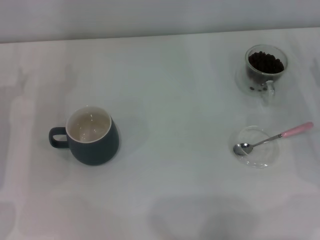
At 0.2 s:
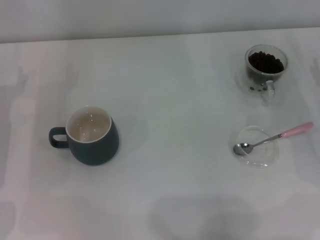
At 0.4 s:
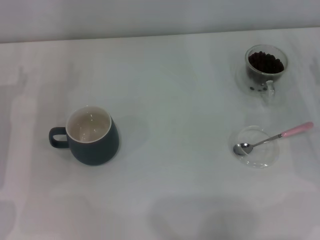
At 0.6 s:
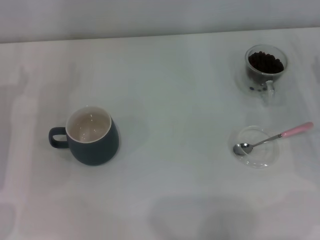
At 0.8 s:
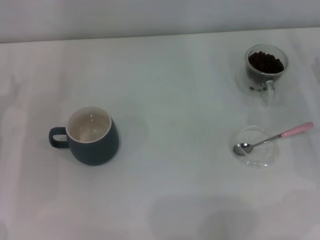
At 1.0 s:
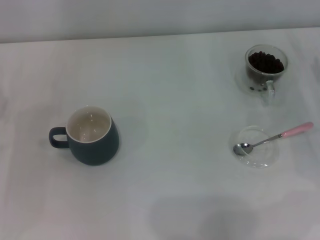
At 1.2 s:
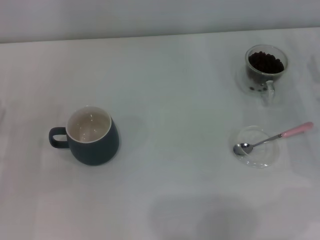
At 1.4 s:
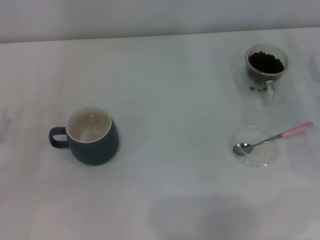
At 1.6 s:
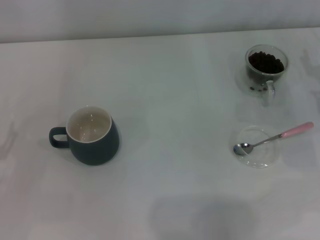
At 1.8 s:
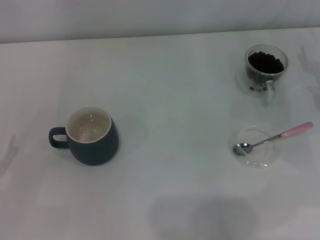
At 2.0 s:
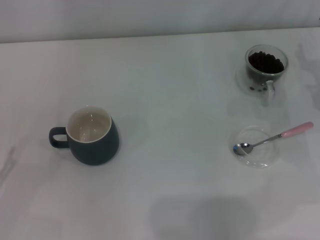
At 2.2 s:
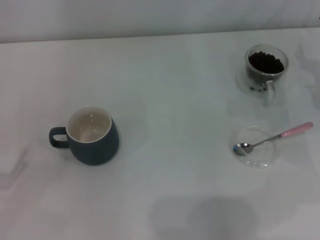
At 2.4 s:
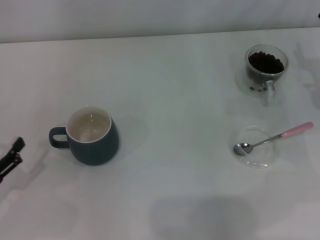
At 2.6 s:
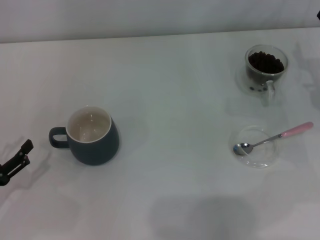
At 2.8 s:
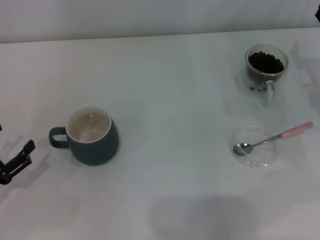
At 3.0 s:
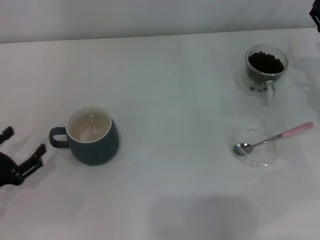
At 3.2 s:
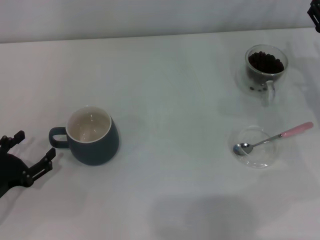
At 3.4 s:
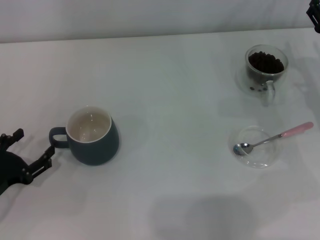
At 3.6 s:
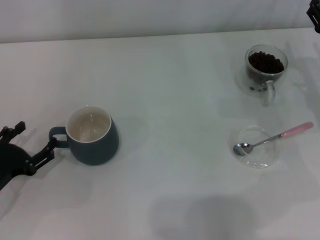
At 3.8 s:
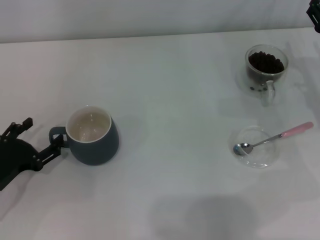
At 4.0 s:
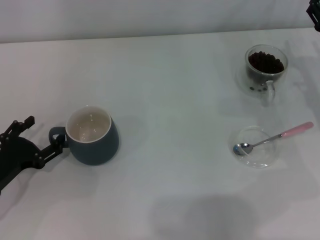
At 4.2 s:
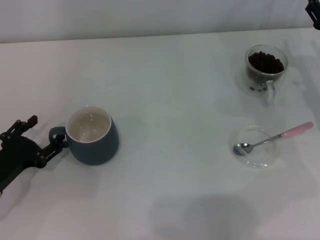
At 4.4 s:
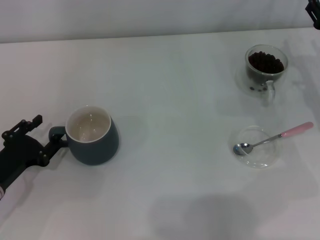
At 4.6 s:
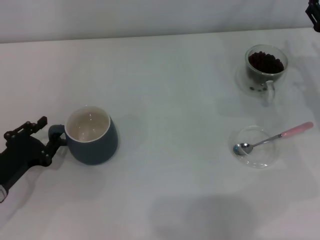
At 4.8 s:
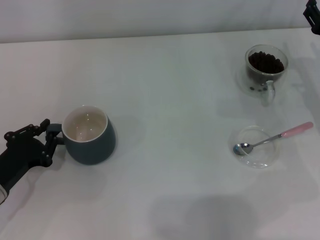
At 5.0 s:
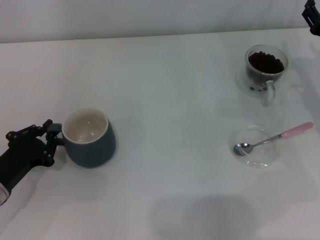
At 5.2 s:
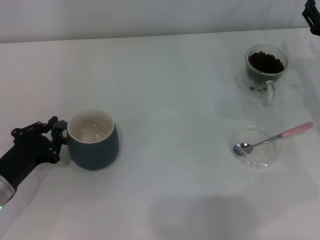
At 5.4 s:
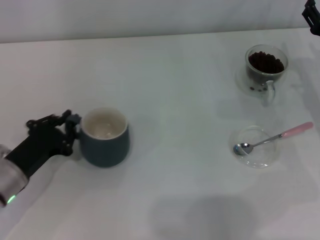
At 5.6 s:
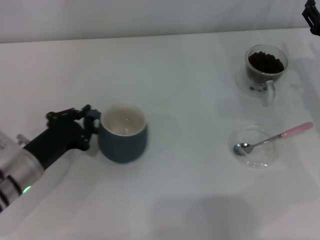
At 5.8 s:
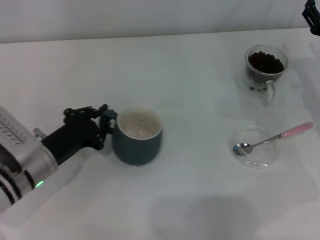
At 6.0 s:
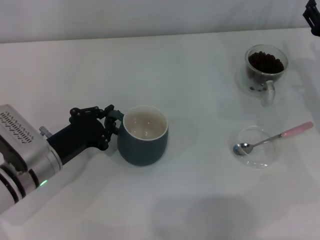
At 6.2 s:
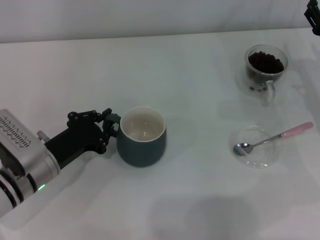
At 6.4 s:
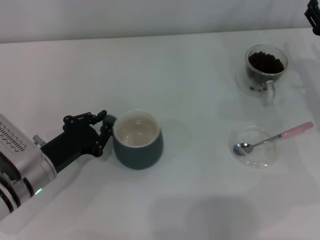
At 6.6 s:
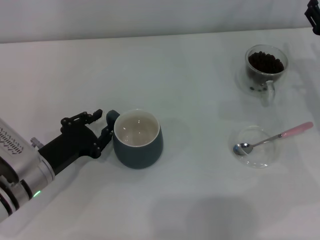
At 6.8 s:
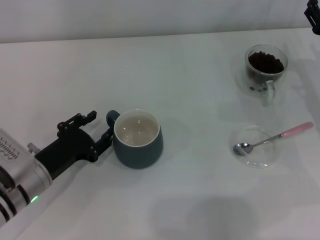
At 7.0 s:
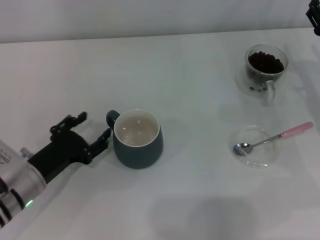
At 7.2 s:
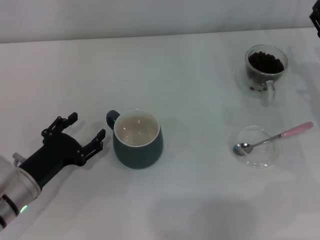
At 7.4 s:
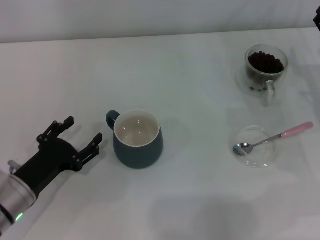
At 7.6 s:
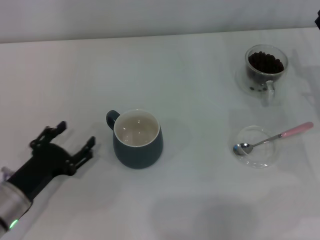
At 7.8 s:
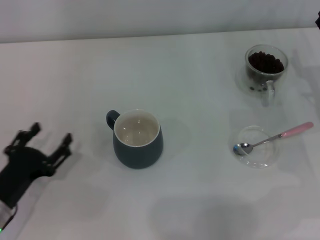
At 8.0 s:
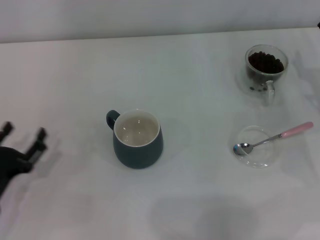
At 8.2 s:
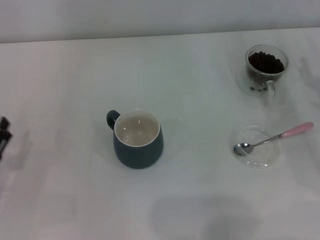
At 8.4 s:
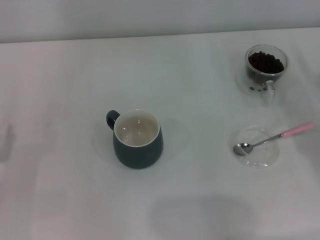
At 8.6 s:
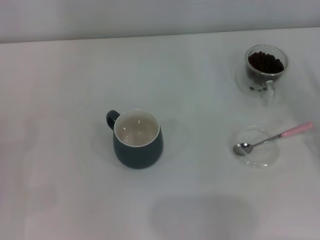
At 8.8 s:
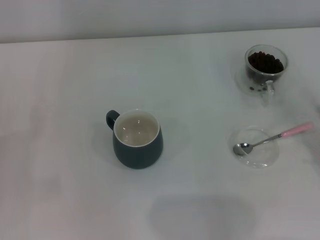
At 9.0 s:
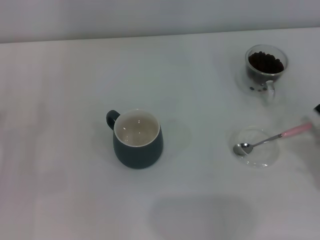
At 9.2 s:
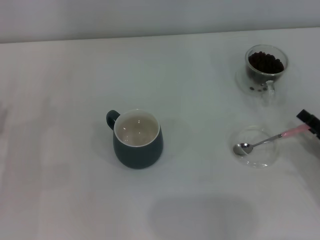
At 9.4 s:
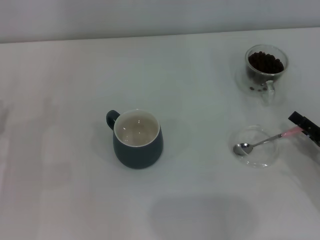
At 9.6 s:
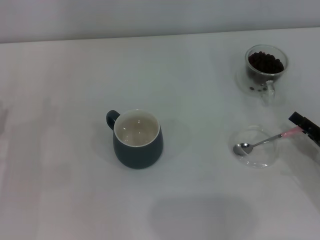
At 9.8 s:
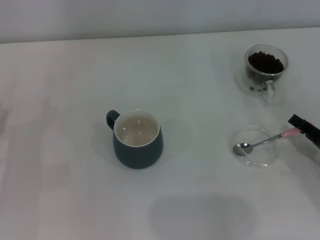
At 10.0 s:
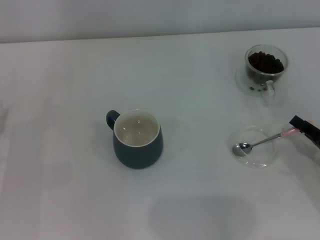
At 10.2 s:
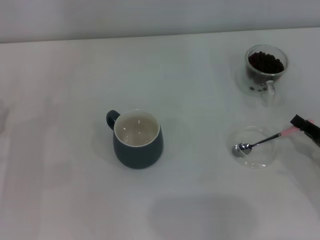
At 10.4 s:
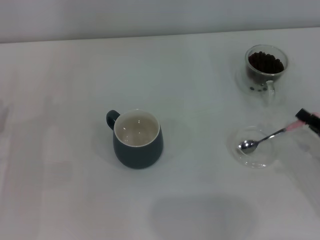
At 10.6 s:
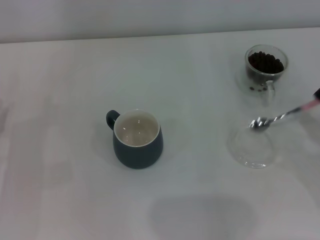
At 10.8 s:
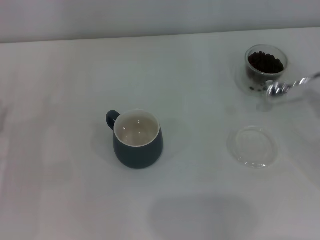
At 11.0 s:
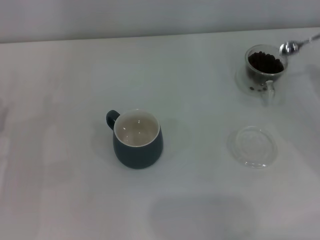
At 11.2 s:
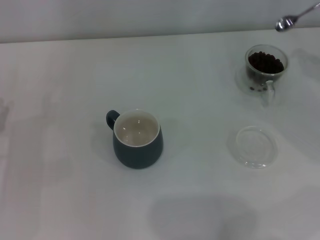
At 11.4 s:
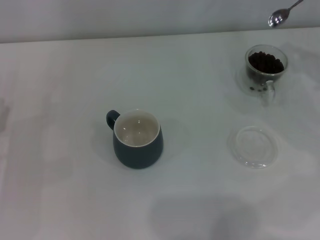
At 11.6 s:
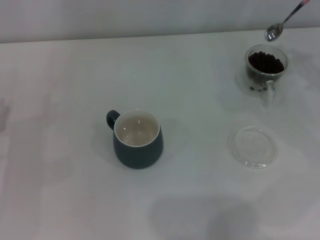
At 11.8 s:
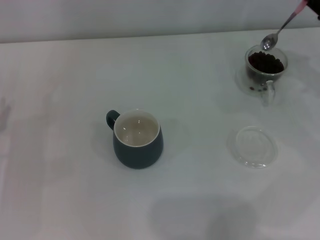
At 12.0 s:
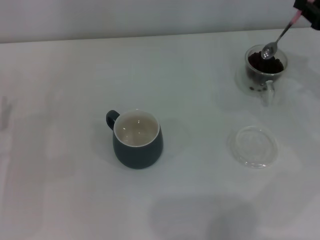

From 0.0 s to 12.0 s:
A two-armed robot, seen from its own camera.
Task of the whole recording: Use a pink spoon to take out the coffee beans from the glass and pour them into the gray cup.
Step, from 0.0 s to 7.0 s: Move the cup to the center of view with the left gripper.
Step, from 7.2 s to 10.4 s: Pick up the spoon with the right gripper.
From 0.0 s to 1.6 s: The left gripper heads backward, covering approximately 15 cm.
From 3.0 s to 4.4 s: The left gripper changes place by about 5 cm.
From 4.4 s to 6.0 s: The left gripper shifts some 10 cm to the right, and closes up.
From 6.0 s to 7.6 s: The left gripper shifts approximately 5 cm backward, and opens up.
From 7.6 s to 9.0 s: The left gripper moves to the left, some 10 cm. Meanwhile the right gripper goes some 15 cm backward.
From 9.0 s to 10.4 s: The right gripper closes its fingers.
From 10.4 s to 12.0 s: The right gripper heads forward and upward, covering roughly 20 cm.

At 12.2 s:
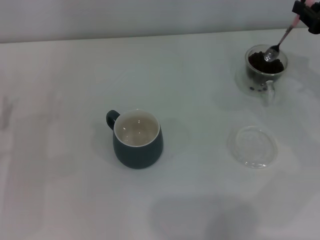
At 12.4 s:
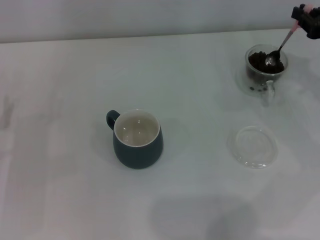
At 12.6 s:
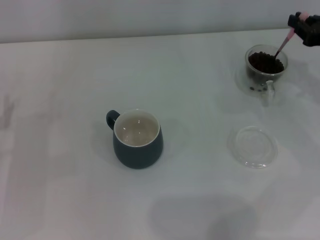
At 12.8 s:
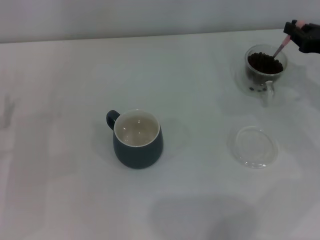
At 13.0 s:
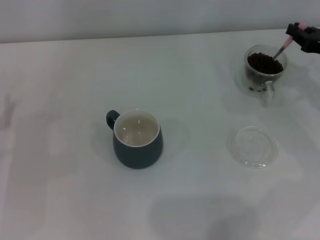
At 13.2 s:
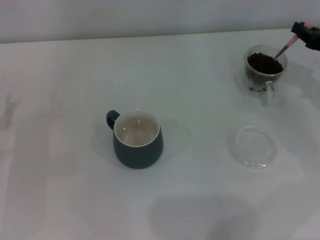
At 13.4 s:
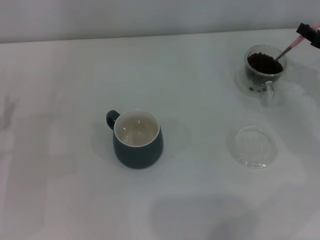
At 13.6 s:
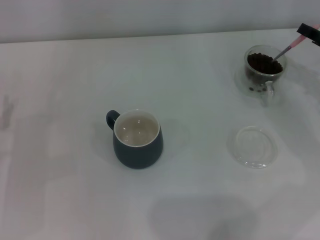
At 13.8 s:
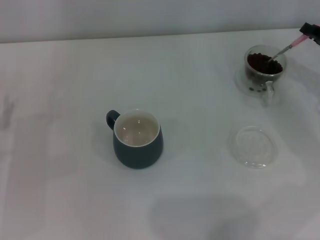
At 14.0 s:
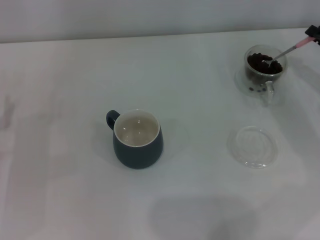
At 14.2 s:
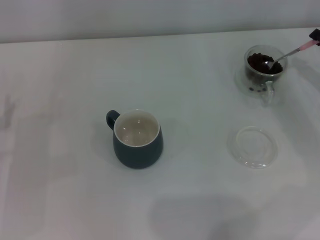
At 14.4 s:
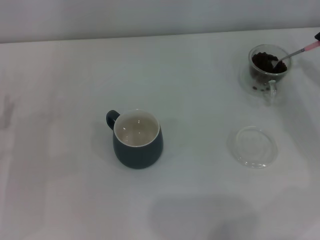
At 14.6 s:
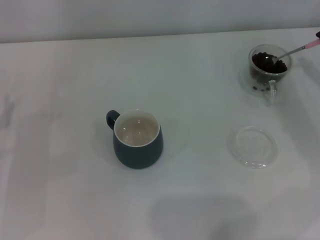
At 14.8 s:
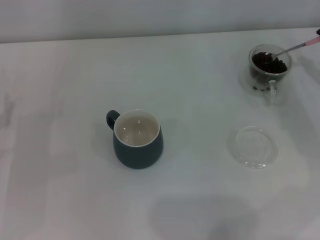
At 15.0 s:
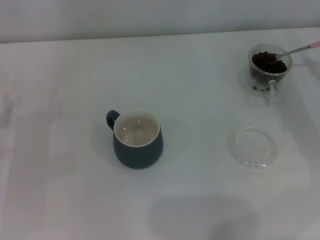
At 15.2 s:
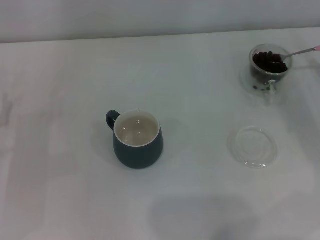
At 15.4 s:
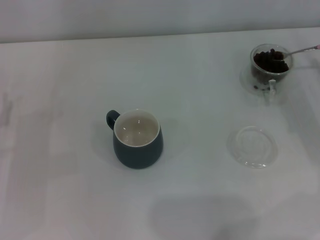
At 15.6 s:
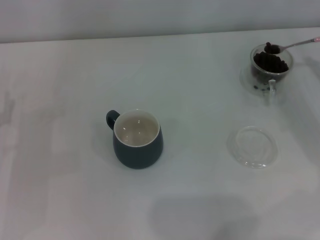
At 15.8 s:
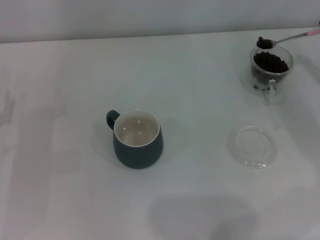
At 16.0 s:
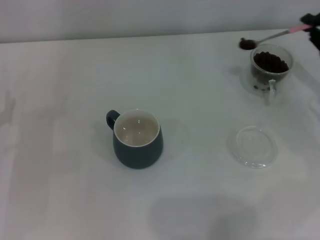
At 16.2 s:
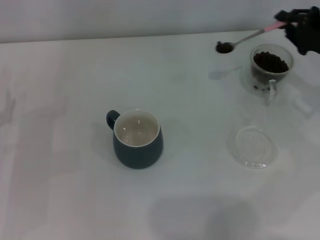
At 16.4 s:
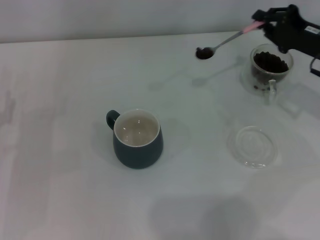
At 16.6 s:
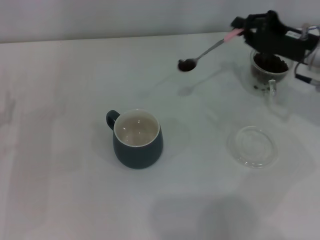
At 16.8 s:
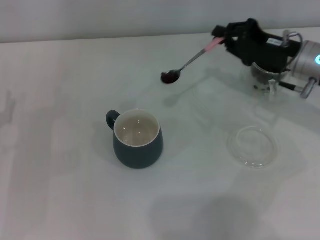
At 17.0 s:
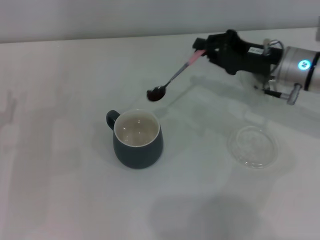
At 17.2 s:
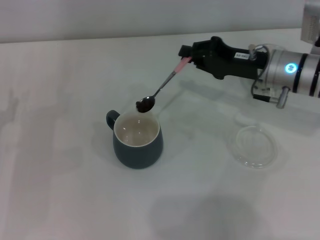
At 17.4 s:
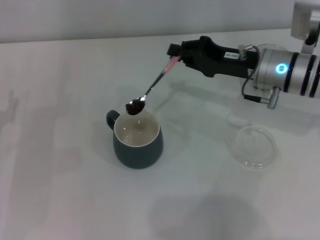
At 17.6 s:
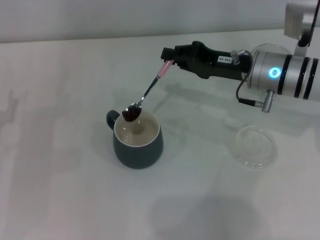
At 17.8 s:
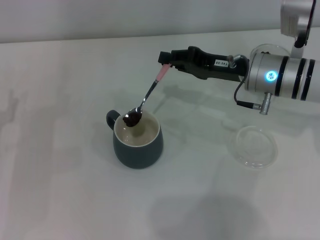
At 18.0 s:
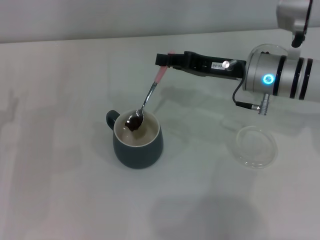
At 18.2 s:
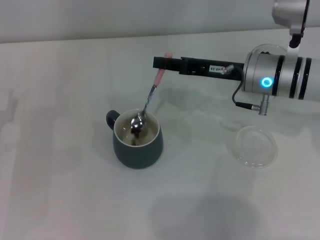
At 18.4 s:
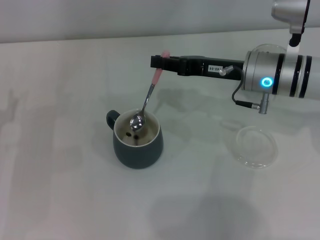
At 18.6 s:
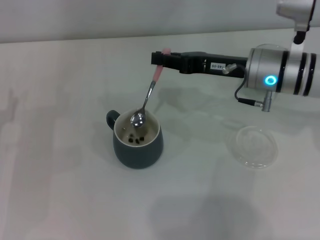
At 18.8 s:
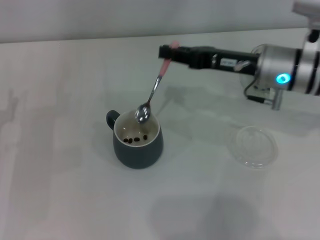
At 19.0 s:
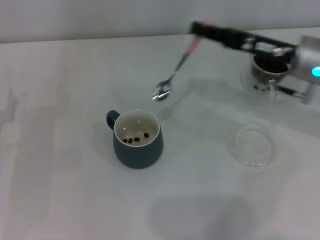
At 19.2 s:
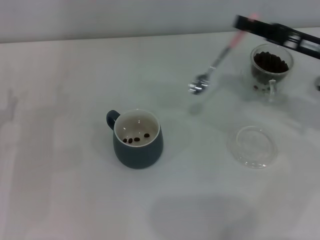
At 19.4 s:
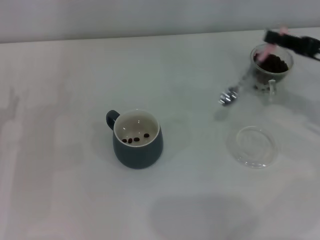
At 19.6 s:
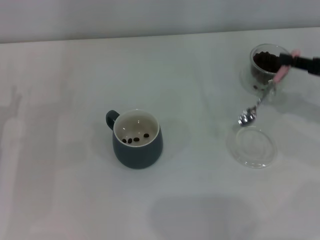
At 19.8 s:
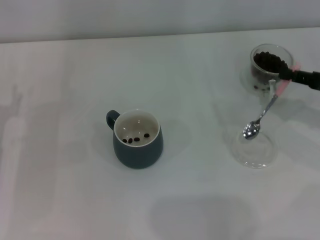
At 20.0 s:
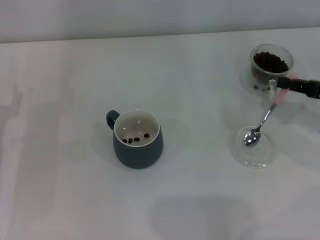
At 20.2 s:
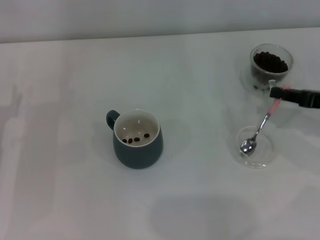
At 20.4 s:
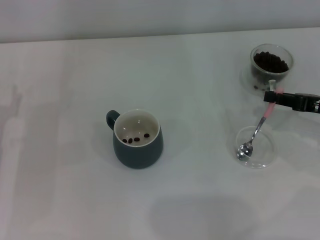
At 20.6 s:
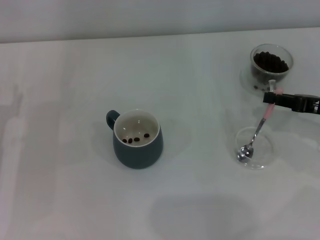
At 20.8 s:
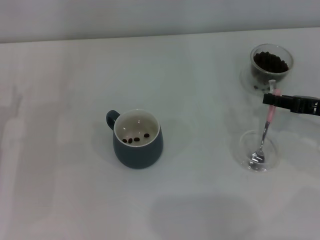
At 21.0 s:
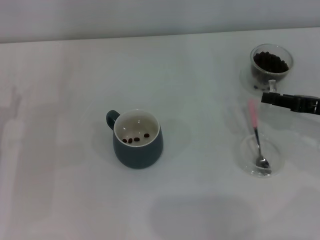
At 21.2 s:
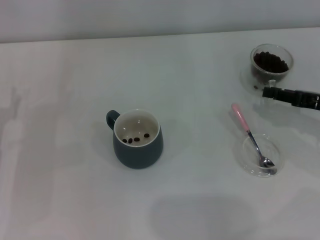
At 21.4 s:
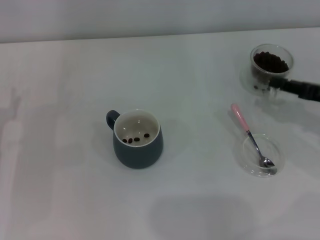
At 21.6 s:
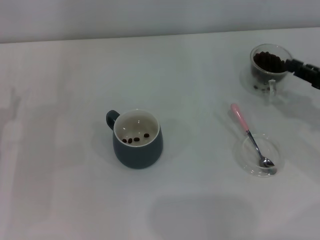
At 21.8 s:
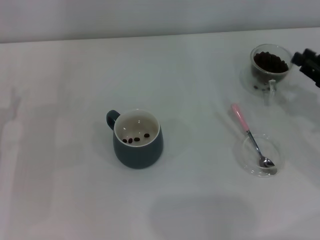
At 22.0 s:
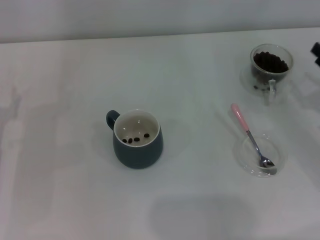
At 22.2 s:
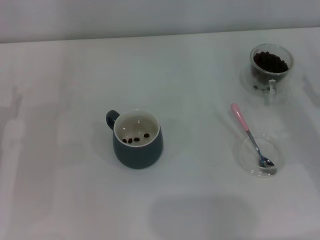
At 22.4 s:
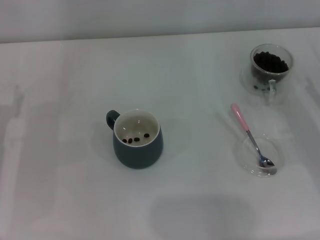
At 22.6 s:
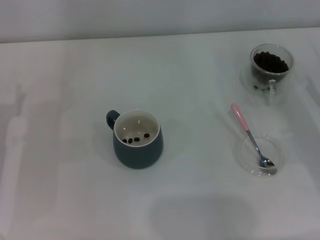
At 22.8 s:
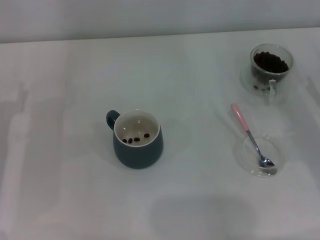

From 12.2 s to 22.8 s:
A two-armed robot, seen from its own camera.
Task of the whole recording: Use a pink spoon to take out the coffee beans from the glass and pour them into the gray cup.
Step, from 12.2 s to 18.2 s: Scoop a spoonful of beans into the cup with the right gripper.
Step, from 18.4 s to 20.8 s: Place the spoon back in its original place with the right gripper.
From 15.2 s to 16.8 s: The right gripper shifts about 15 cm to the left.
From 16.8 s to 18.2 s: The right gripper shifts approximately 5 cm to the left.
From 18.2 s to 19.8 s: The right gripper shifts roughly 20 cm to the right and backward.
From 19.8 s to 21.2 s: There are only small adjustments of the grippers.
From 21.2 s to 22.8 s: The right gripper shifts by some 5 cm, and opens up.
